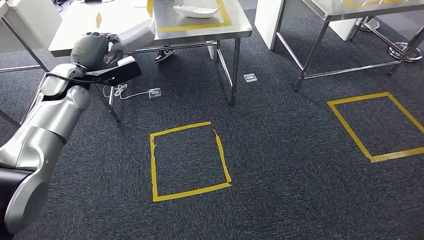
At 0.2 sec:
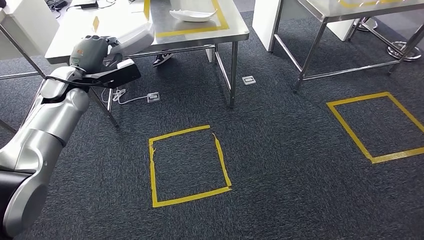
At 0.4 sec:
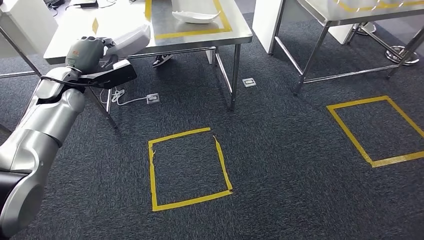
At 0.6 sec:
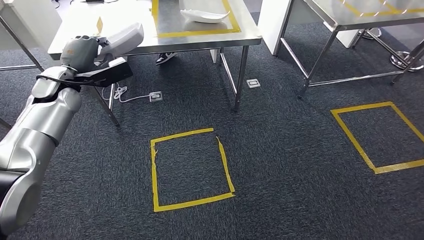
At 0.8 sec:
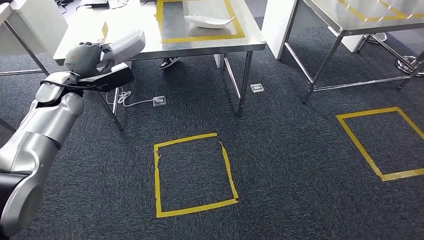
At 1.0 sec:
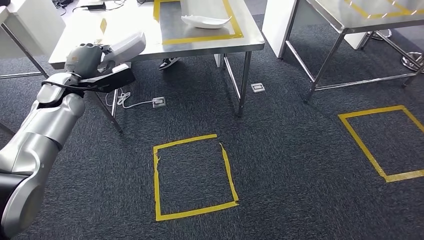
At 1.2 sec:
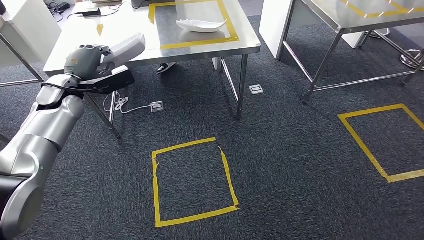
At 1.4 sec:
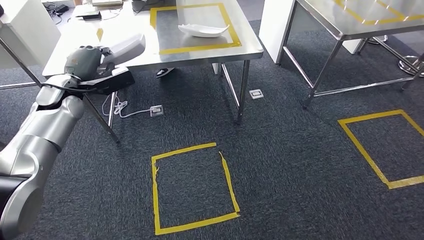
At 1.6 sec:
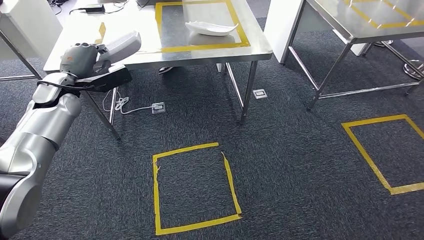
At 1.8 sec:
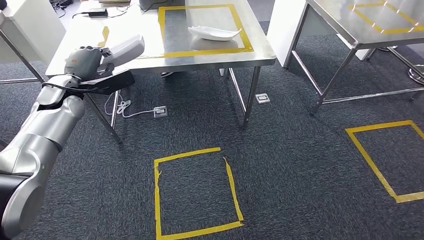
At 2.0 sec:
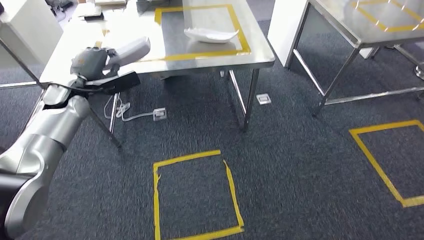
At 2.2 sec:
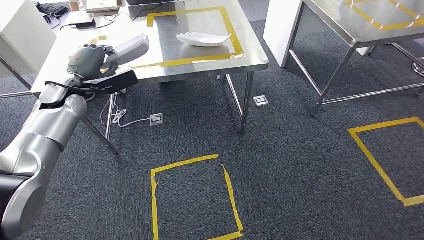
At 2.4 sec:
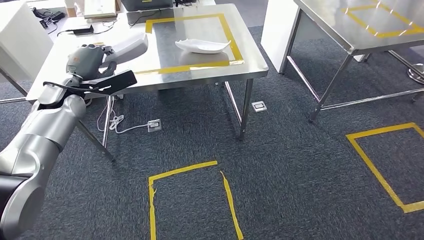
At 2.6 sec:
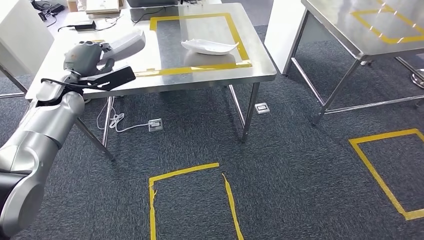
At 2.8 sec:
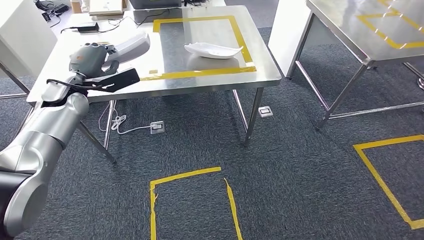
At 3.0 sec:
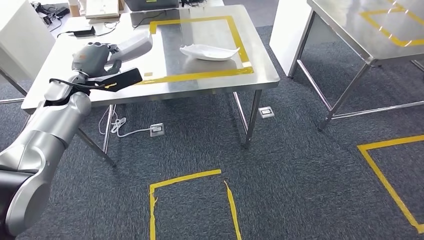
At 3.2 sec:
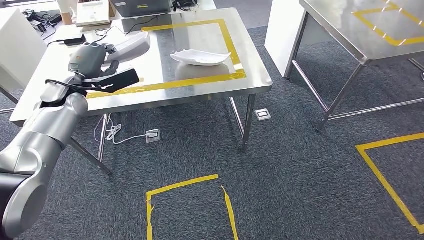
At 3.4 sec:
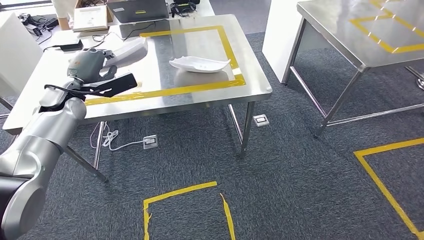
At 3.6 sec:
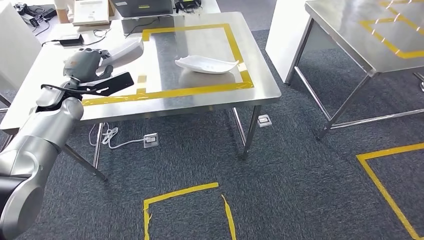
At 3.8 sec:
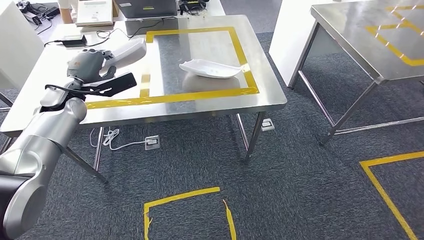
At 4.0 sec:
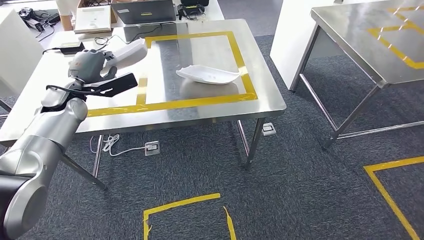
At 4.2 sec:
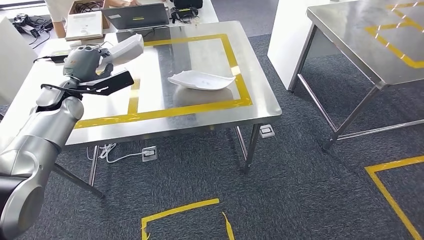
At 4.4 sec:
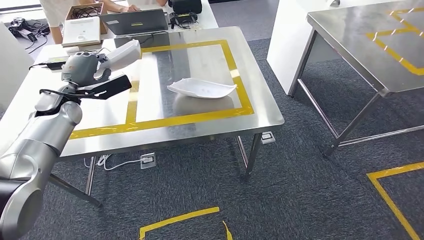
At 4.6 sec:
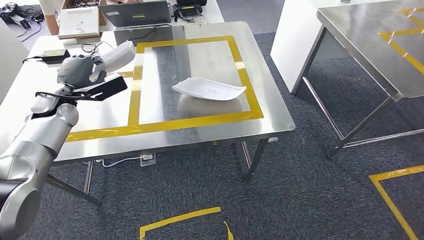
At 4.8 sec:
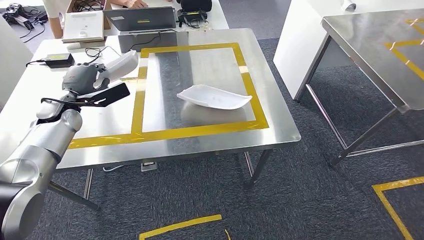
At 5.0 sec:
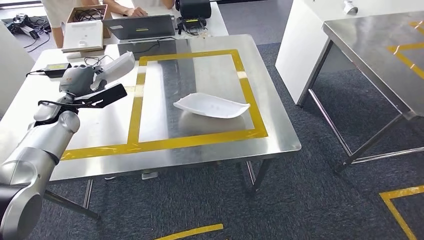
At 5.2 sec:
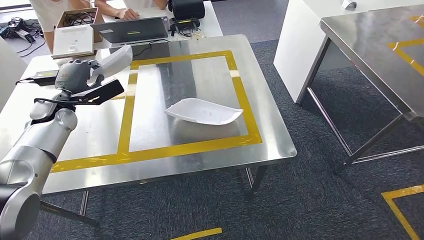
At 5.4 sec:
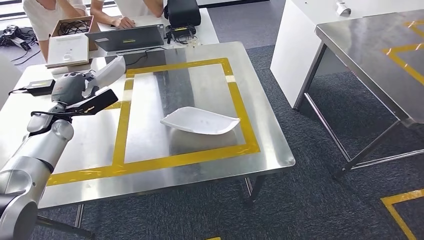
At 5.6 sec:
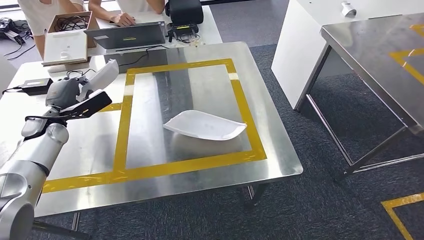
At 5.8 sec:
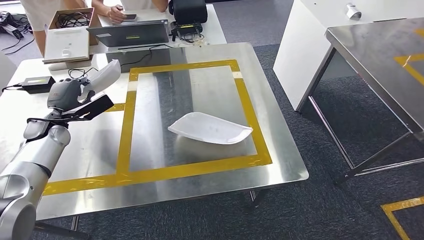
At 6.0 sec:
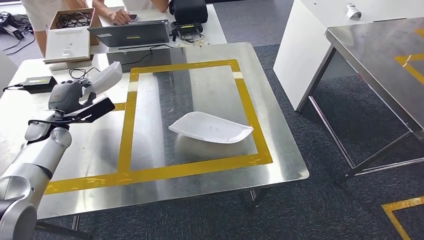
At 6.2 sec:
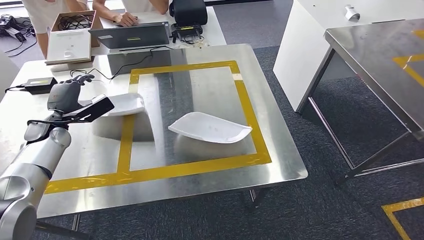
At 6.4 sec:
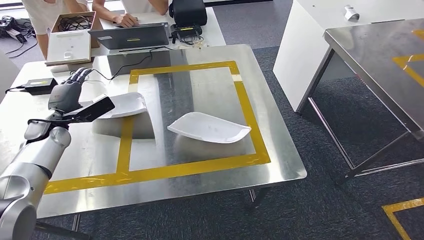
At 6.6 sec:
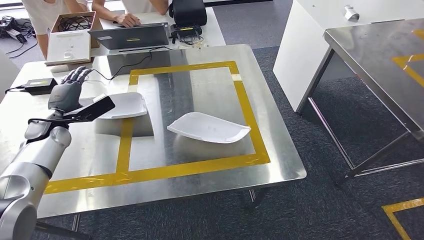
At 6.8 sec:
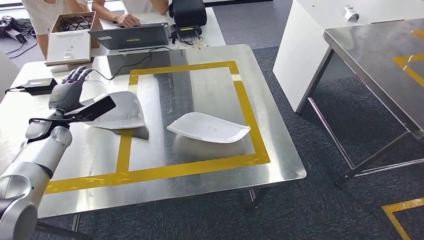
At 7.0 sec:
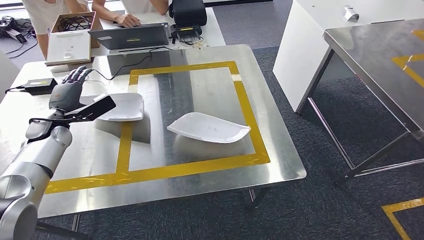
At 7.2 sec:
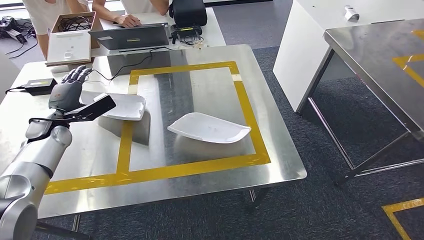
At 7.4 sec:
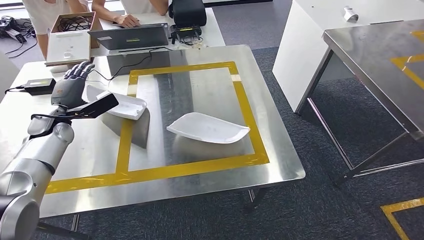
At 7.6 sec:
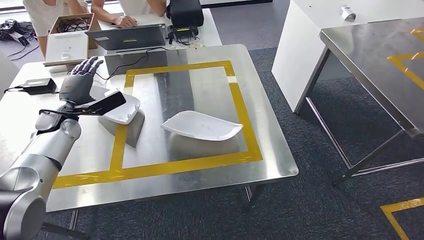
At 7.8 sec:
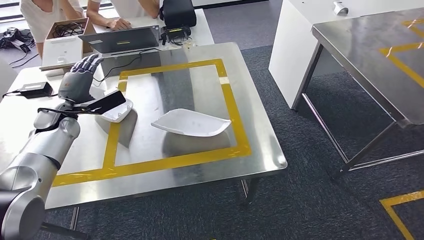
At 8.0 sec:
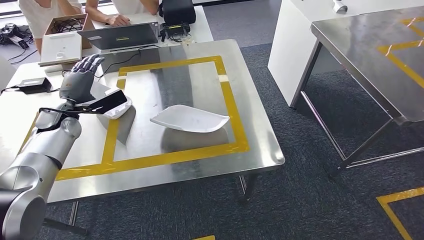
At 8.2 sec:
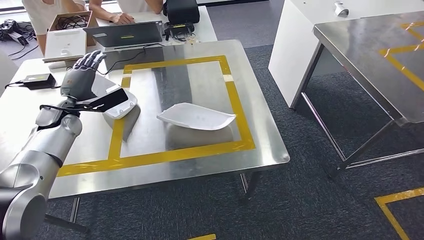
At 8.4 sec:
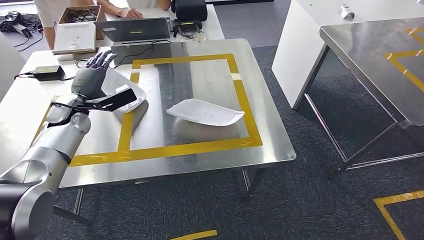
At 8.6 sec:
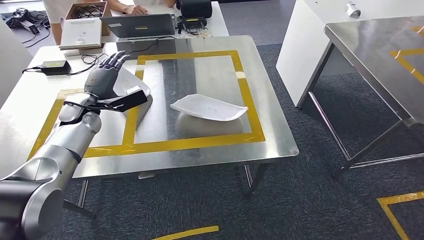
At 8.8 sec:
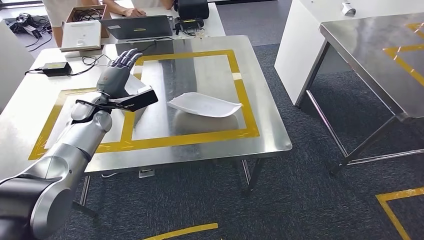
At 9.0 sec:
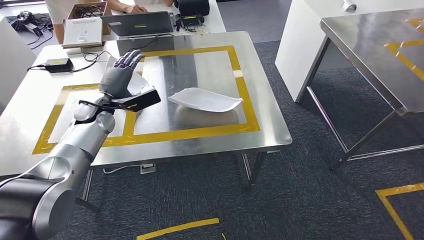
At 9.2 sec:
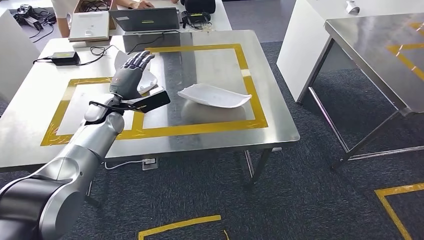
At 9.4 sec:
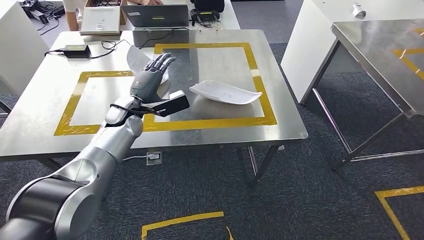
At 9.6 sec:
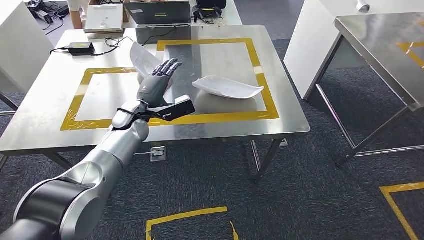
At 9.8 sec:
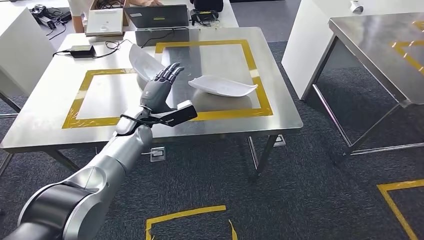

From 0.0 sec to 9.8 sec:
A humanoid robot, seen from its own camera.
Step, from 0.0 sec to 6.0 sec: Move the small component to the workbench.
Step, from 6.2 sec to 8.2 sec: Insert the small component into the corresponding slot on the workbench.
Step, from 8.4 sec to 9.6 sec: Move to the initial position at the workbench.
